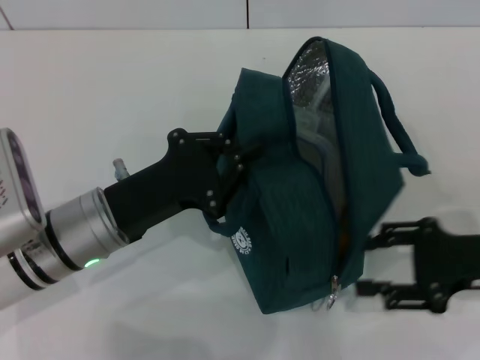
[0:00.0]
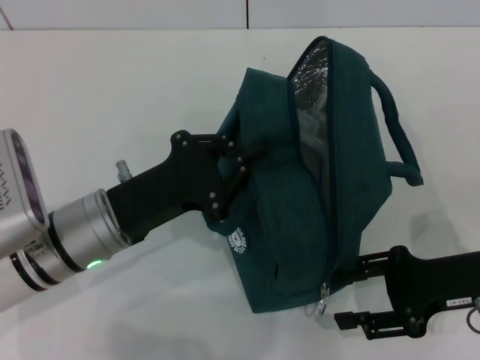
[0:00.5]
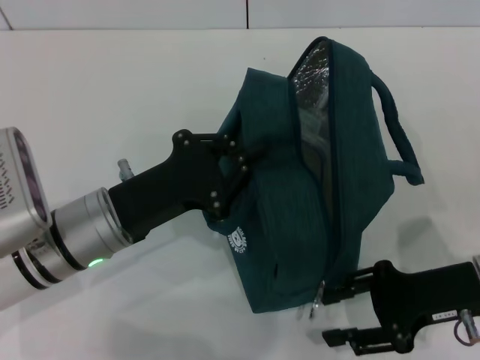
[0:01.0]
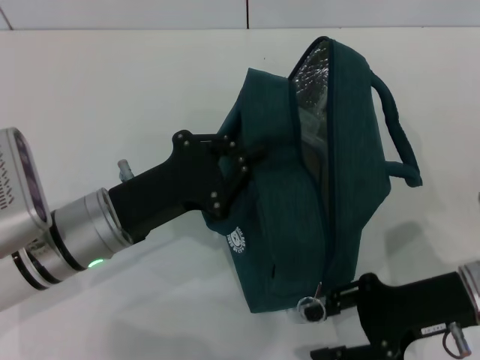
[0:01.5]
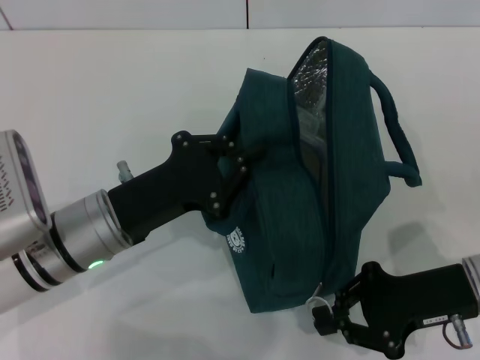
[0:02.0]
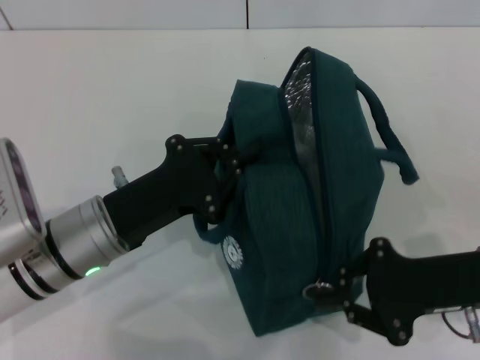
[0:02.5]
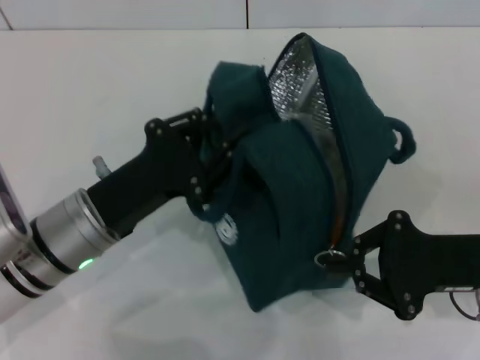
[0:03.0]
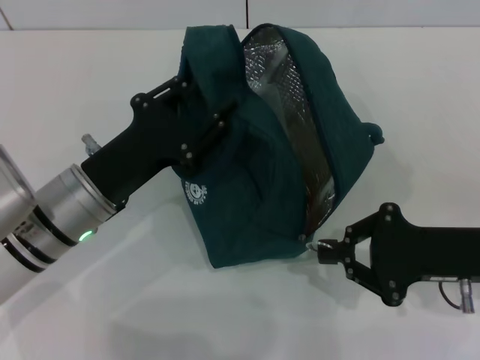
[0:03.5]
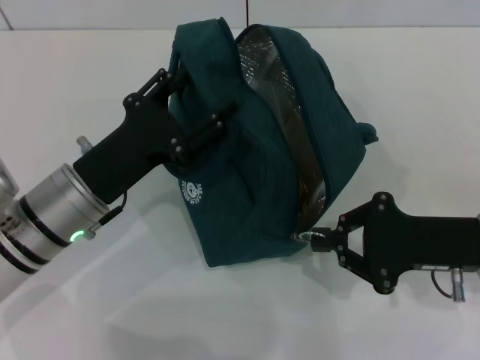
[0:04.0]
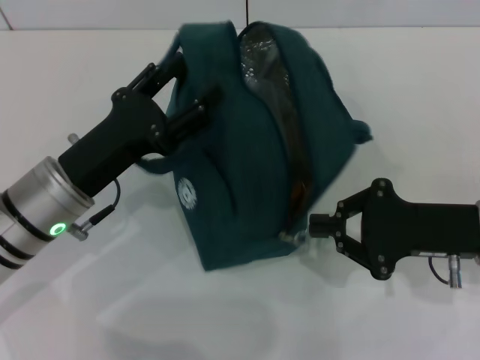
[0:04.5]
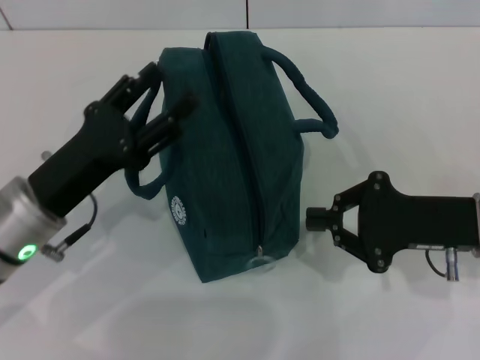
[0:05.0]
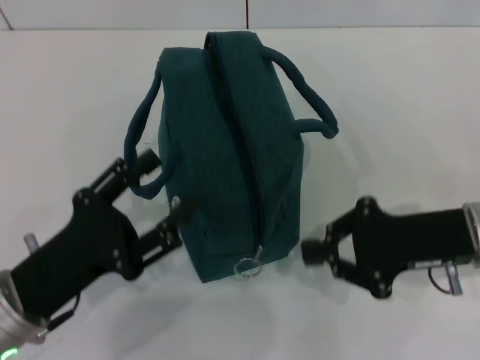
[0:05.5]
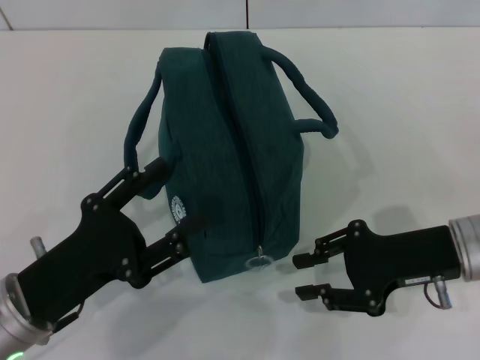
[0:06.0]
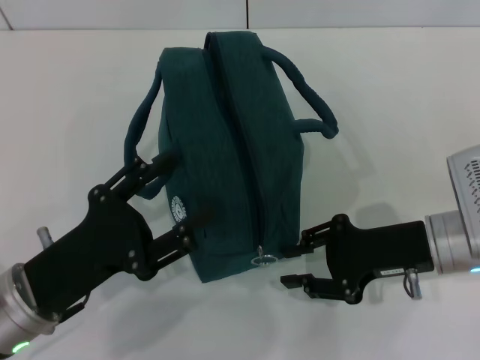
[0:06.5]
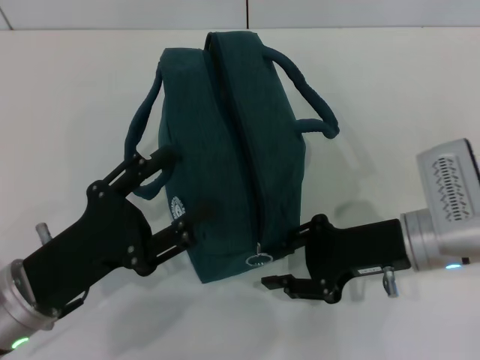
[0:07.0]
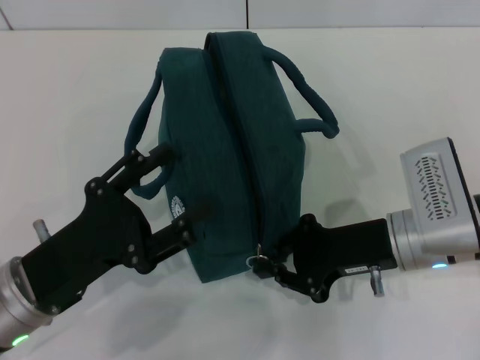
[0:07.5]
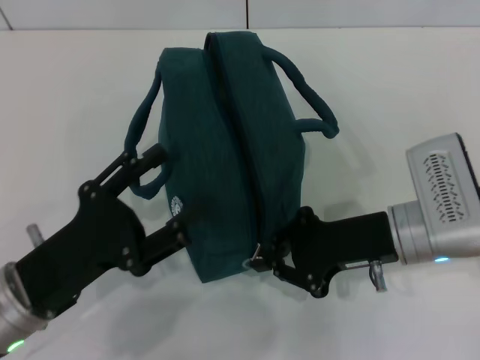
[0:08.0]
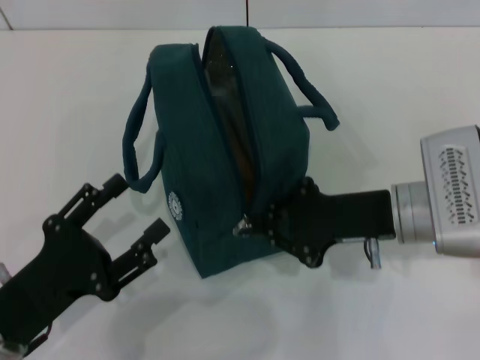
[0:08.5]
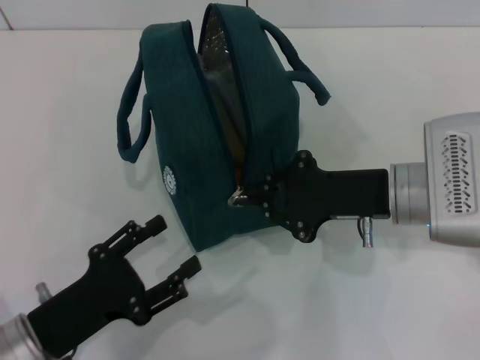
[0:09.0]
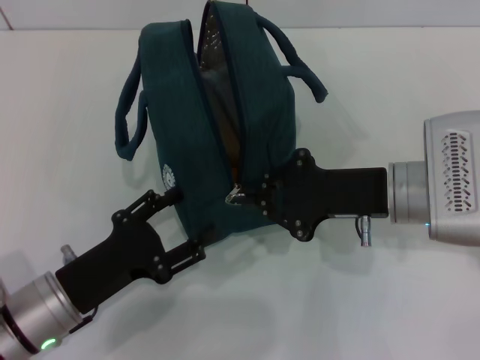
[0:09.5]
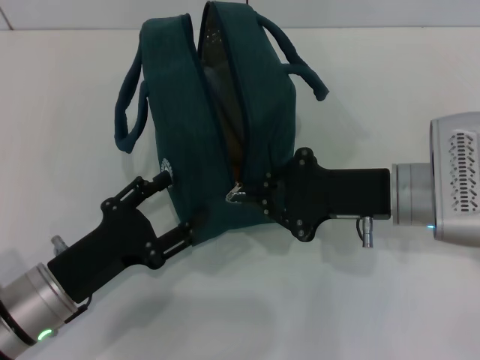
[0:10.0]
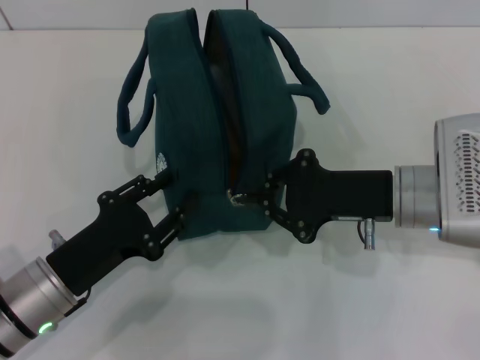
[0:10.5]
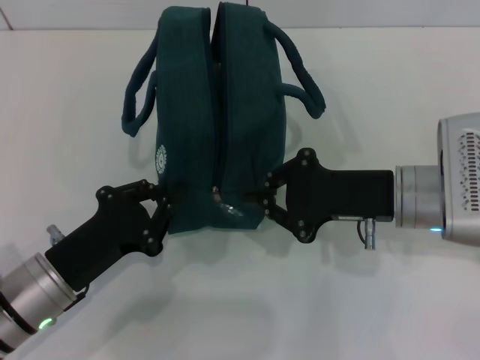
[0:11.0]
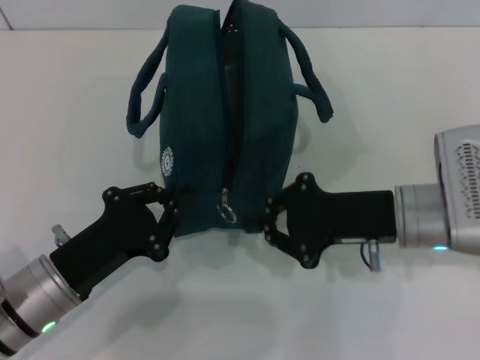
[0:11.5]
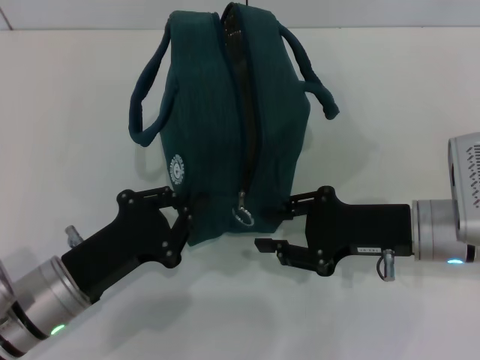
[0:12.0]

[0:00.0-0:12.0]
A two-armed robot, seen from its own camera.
Step, 0:00.0 to 0:04.5: Hold the lunch bag with your left hand.
0:00.0 to 0:02.0: The right gripper goes about 5 cm to the left, and closes its fingers.
0:02.0 to 0:04.0: The left gripper opens its fingers.
0:04.0 to 0:06.0: The left gripper shifts some 10 cm backward.
0:06.0 to 0:08.0: The right gripper is displaced to the left by some 5 cm.
0:10.0 to 0:12.0: The left gripper closes its fingers.

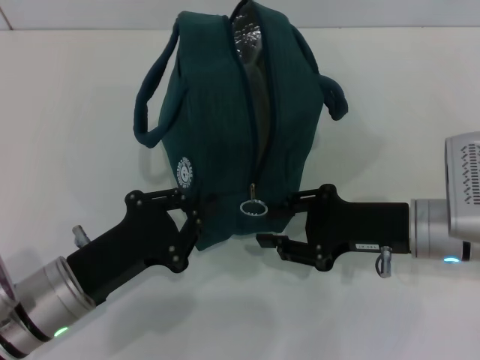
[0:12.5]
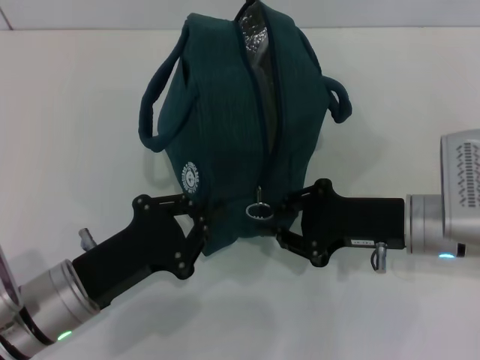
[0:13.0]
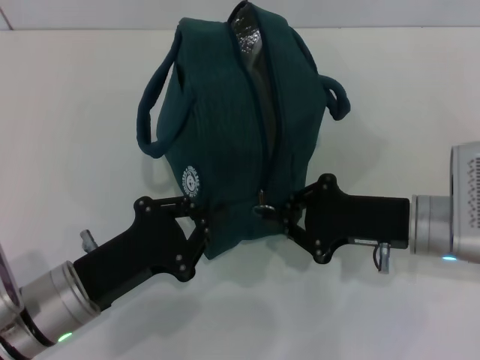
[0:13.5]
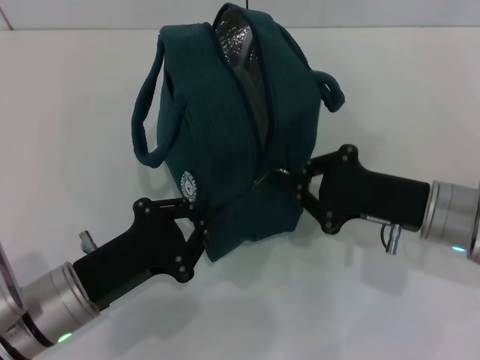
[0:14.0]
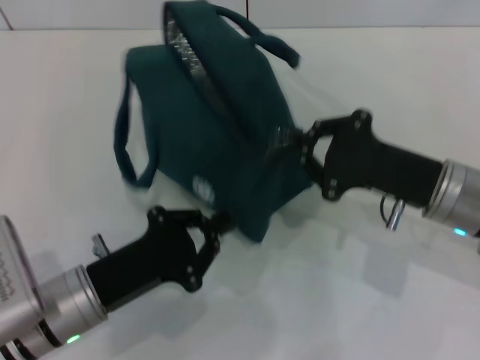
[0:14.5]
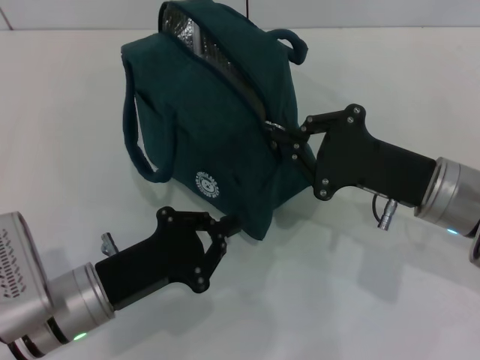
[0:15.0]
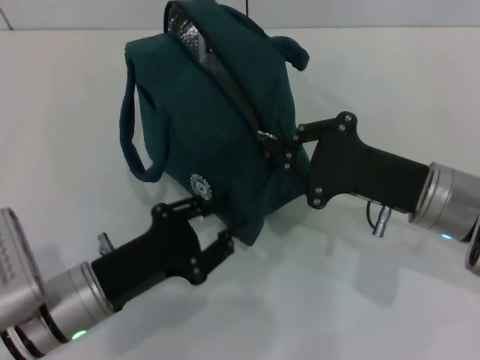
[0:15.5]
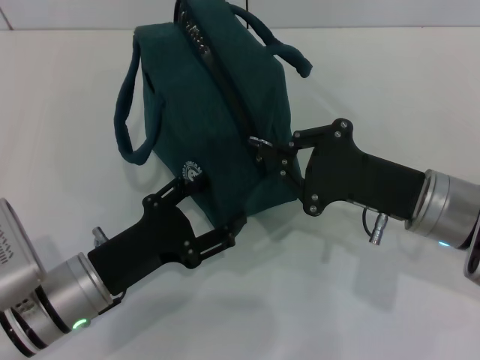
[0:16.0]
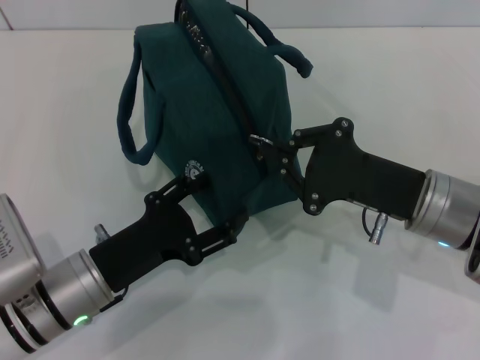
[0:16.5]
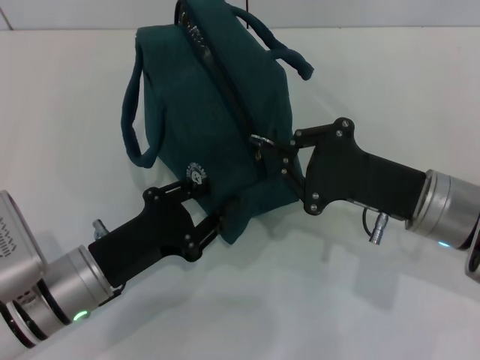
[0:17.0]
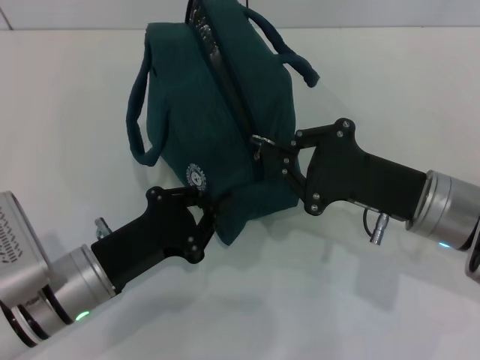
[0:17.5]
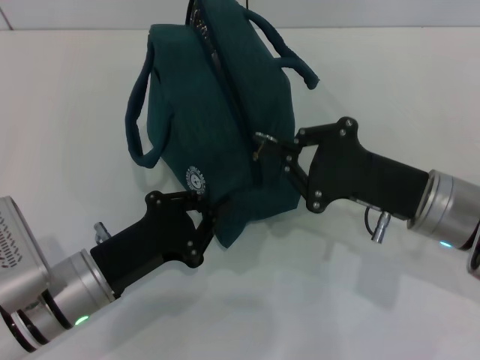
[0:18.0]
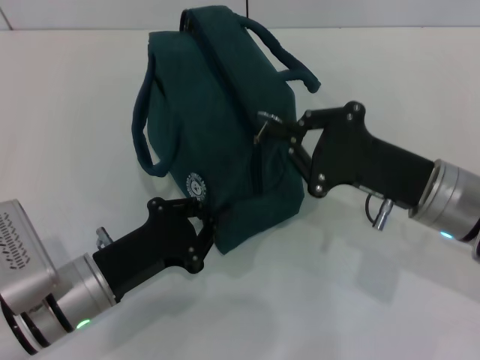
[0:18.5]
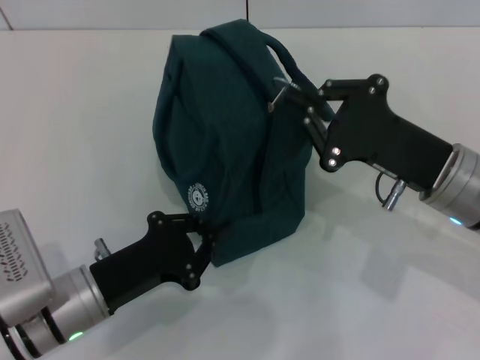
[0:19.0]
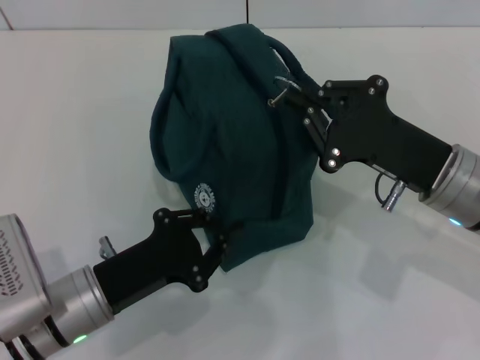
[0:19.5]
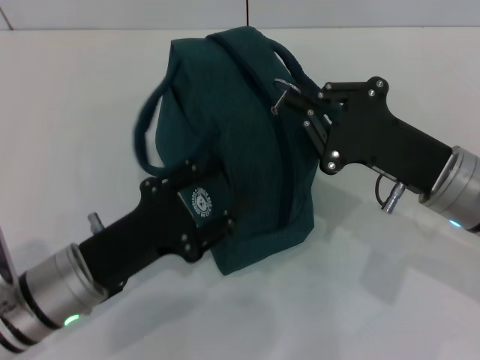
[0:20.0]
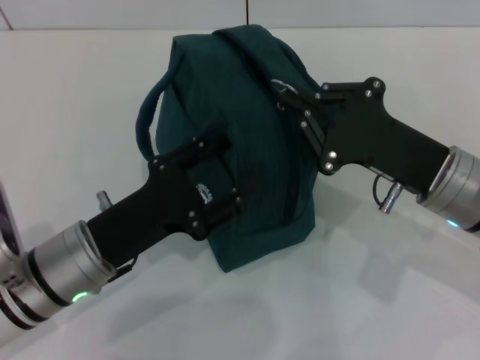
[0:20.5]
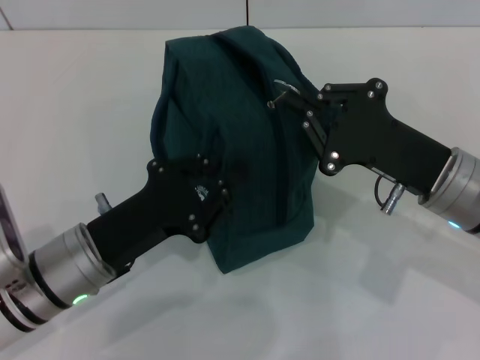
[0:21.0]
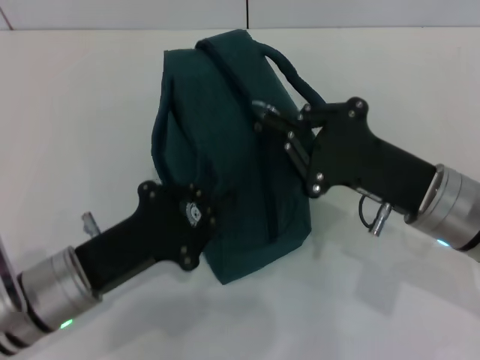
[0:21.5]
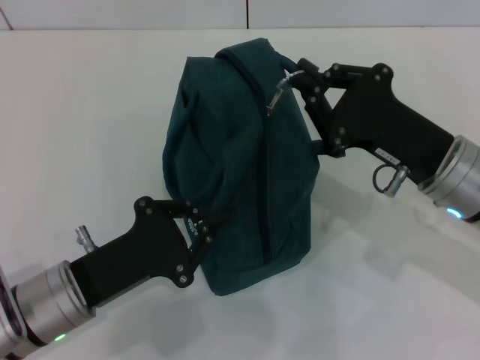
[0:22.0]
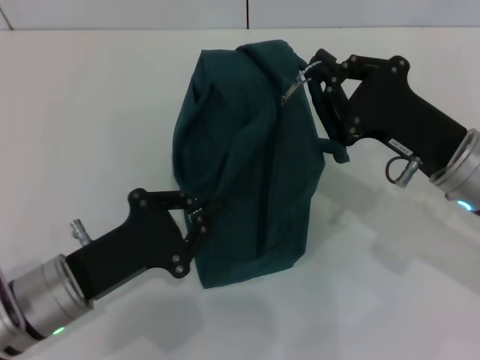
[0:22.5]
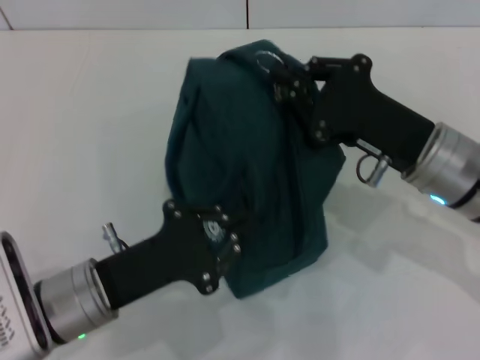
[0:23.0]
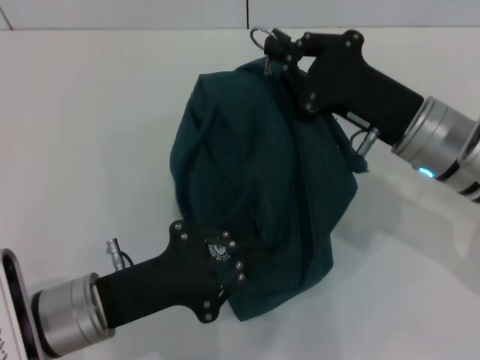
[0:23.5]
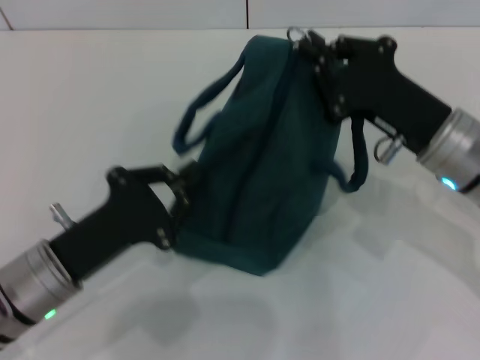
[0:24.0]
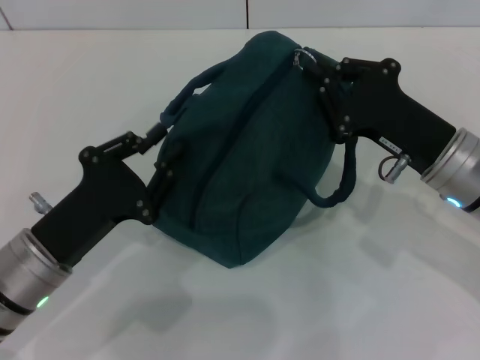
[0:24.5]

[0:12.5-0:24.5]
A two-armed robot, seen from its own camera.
0:12.5 to 0:14.5: The right gripper closes its fingers.
0:14.5 to 0:16.5: The left gripper opens.
0:16.5 to 0:18.5: The left gripper closes its fingers.
0:18.5 to 0:20.5: The left gripper opens.
0:20.5 to 0:22.5: The left gripper closes.

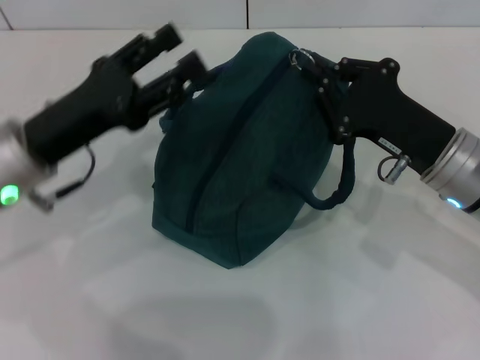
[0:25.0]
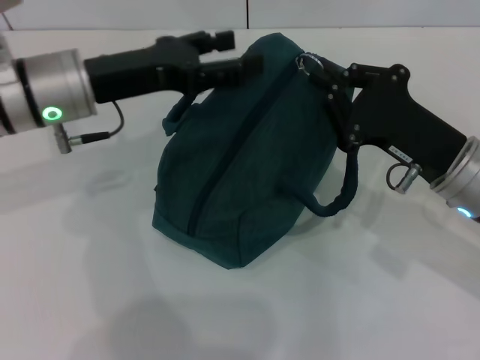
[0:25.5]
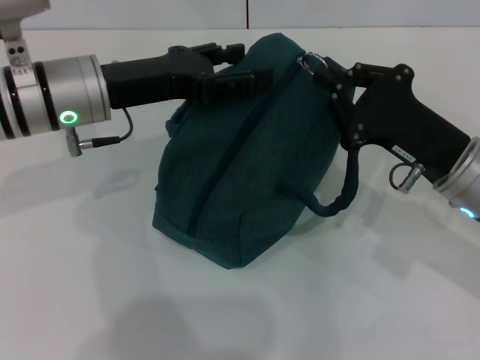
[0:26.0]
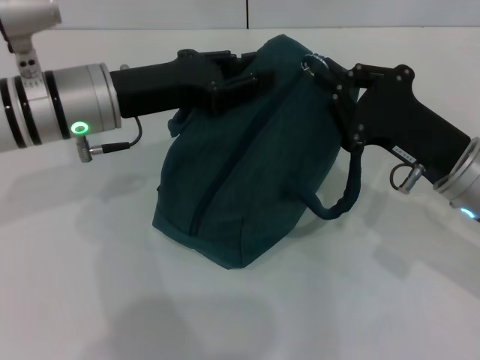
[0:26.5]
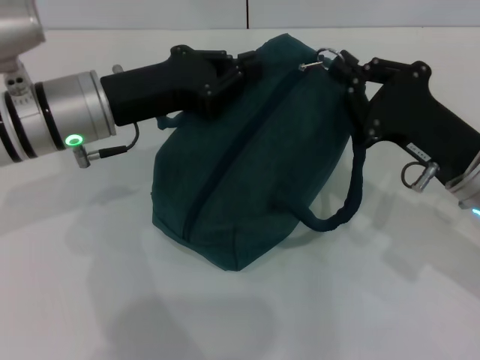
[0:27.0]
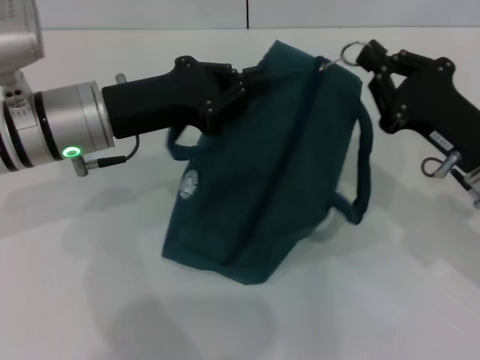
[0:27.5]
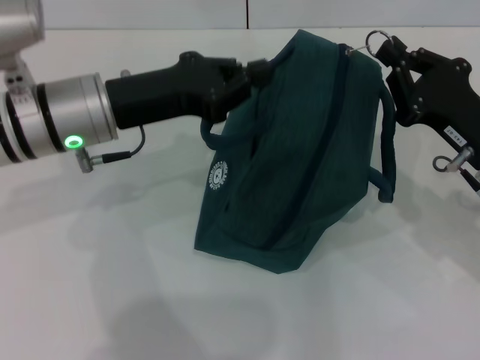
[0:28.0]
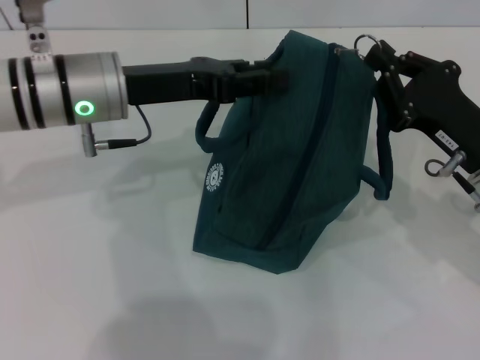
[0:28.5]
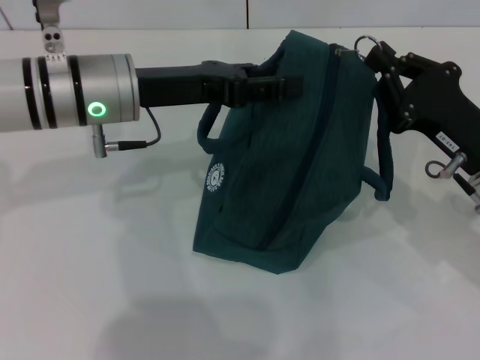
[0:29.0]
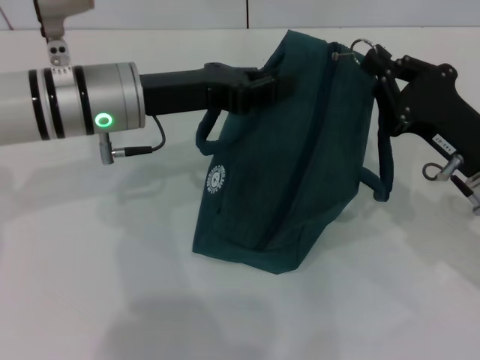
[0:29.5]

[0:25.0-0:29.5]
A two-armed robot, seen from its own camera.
0:25.0 to 0:27.0: The left gripper changes place by approximately 5 cm, and closes.
